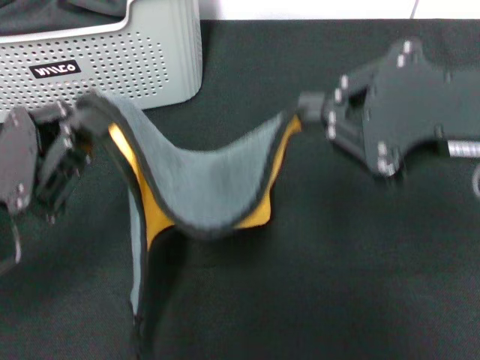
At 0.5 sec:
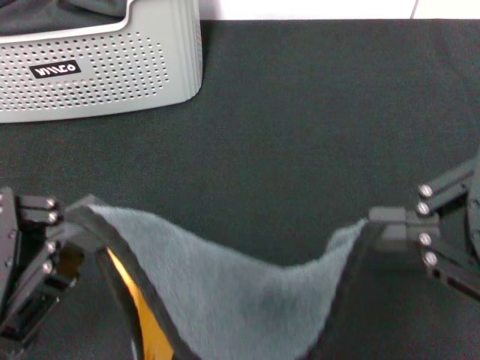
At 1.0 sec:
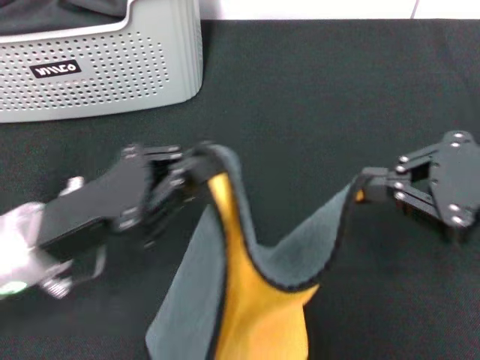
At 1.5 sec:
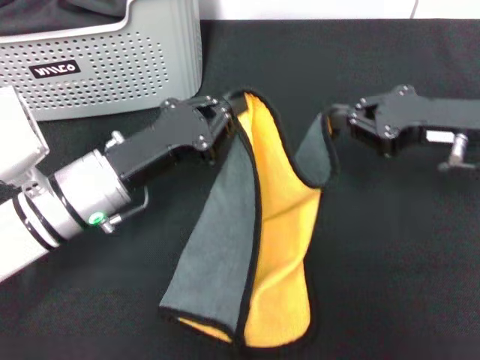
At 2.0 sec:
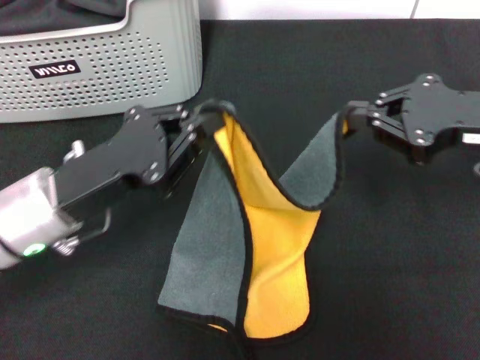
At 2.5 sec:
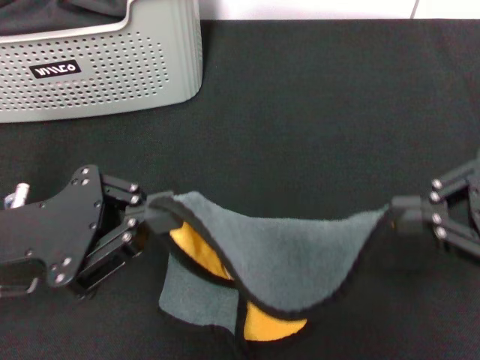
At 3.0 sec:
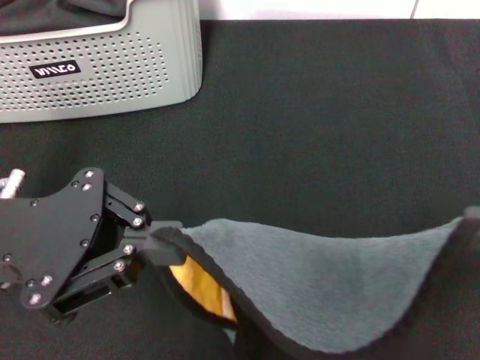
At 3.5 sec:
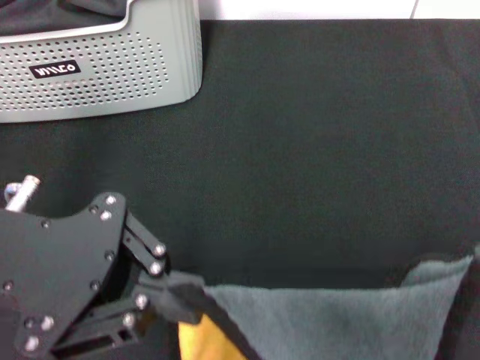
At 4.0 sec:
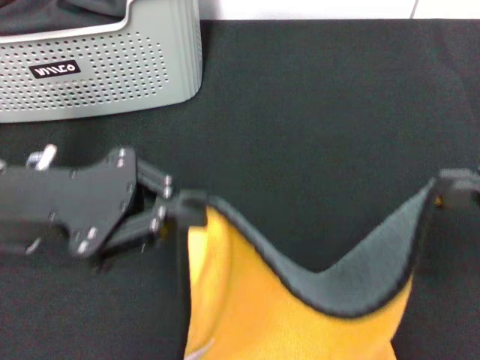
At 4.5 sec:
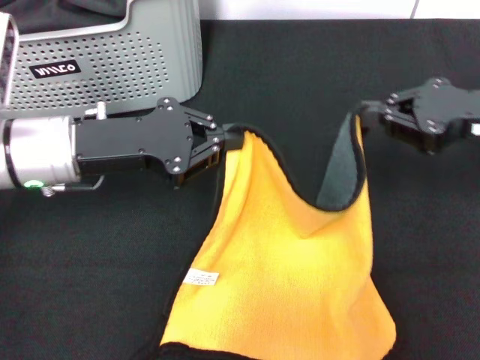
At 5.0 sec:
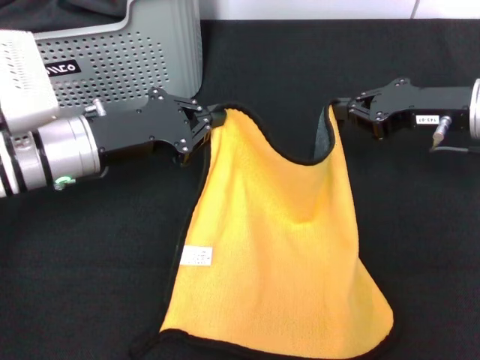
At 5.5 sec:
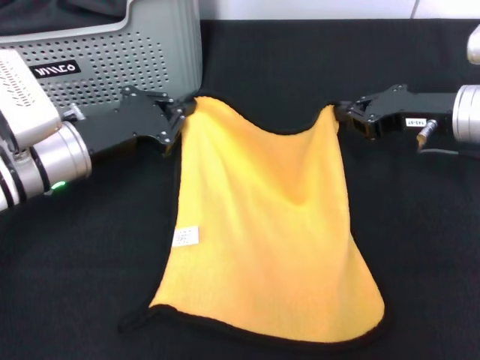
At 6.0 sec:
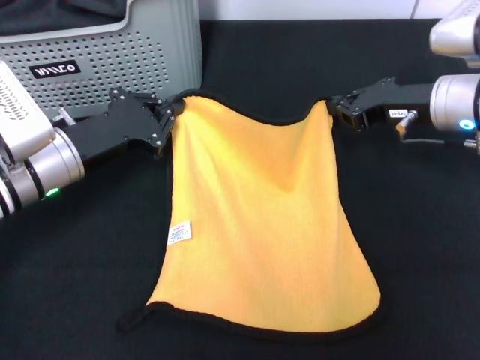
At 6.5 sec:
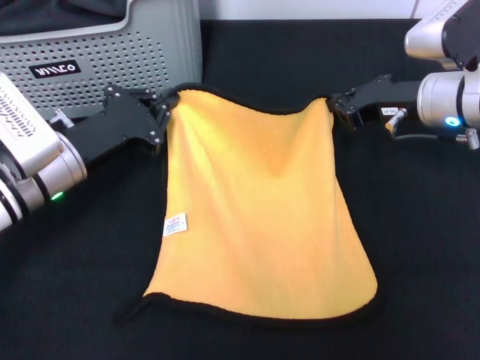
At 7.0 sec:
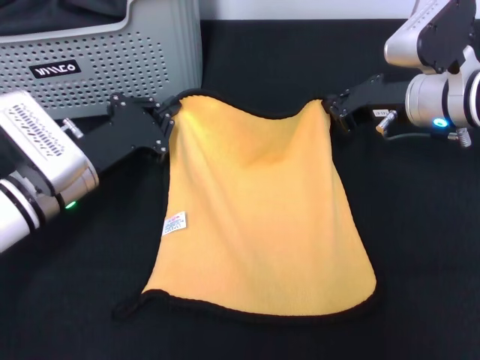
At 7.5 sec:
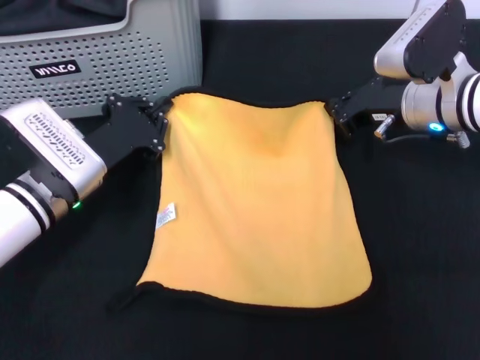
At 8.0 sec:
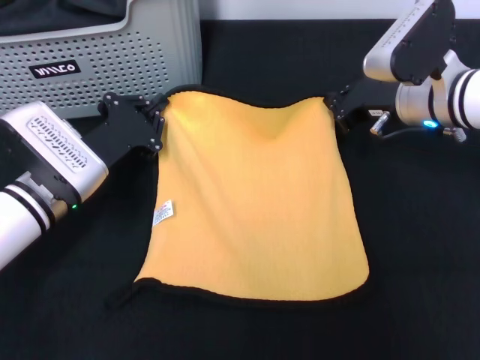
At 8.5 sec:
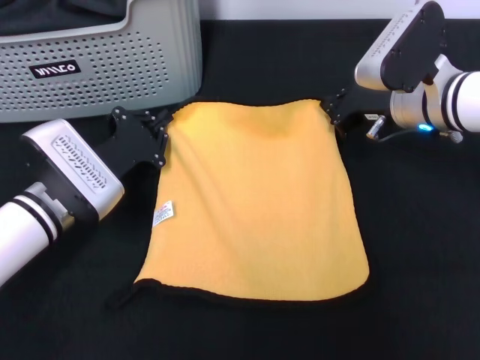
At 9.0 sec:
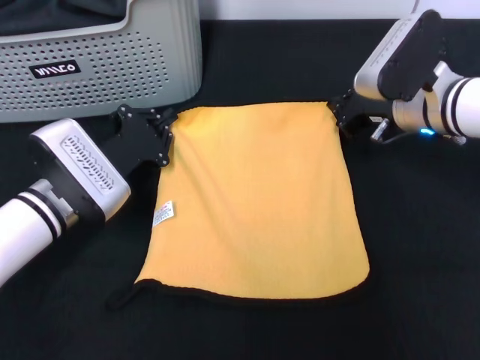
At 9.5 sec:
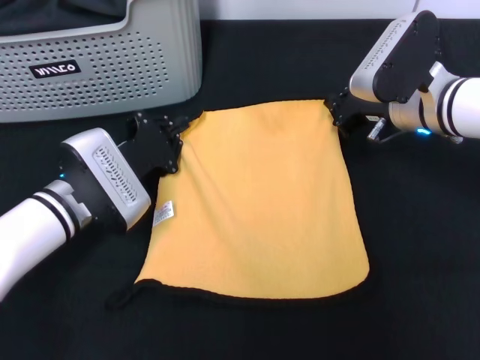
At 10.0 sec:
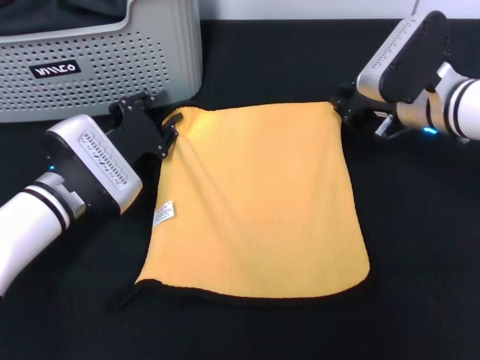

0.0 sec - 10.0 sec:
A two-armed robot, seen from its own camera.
Task of the whole recording: pick up the towel from the storage box and lay it flat on the black tablecloth.
0.0 sec - 2.0 sec: The left gripper is displaced forward by about 5 cm. The right gripper travels downward, forward and to the right by roughly 15 cm.
2.0 sec - 4.0 sec: The left gripper is displaced upward by some 5 cm, while the right gripper moves backward and upward, approximately 10 cm.
4.0 sec - 6.0 sec: The left gripper shifts roughly 10 cm downward and forward; the right gripper moves forward, downward and to the left, some 25 cm.
8.0 sec - 10.0 sec: The grippers move only a little.

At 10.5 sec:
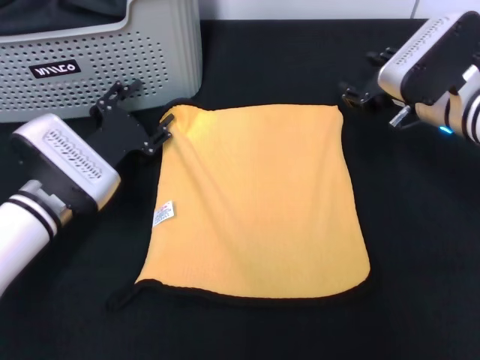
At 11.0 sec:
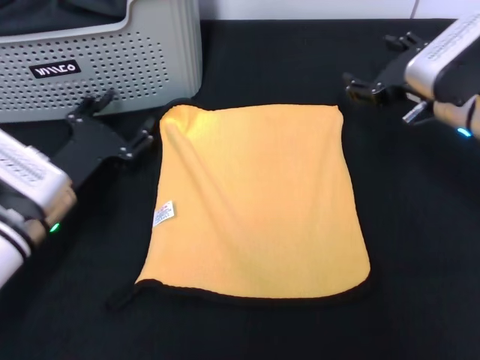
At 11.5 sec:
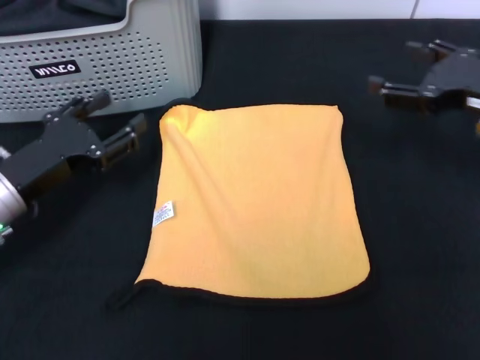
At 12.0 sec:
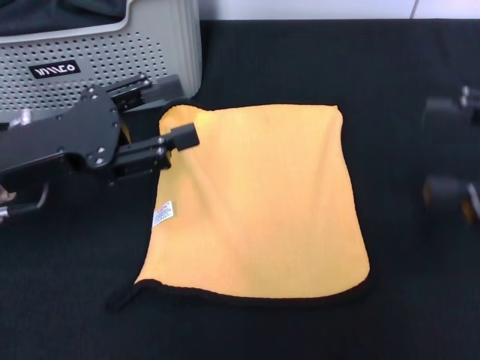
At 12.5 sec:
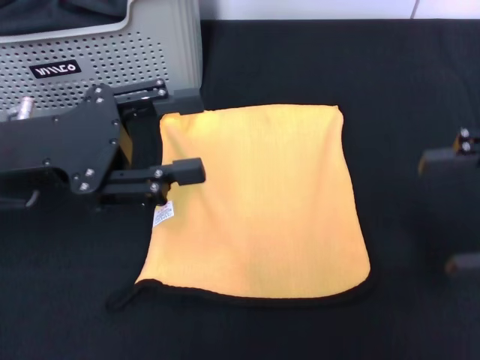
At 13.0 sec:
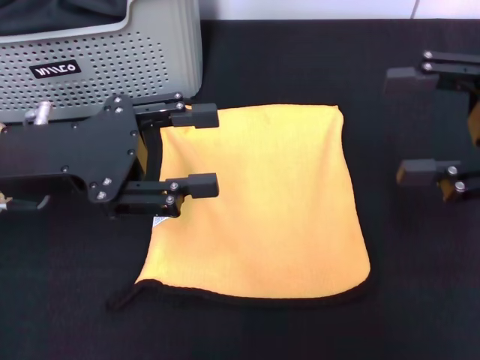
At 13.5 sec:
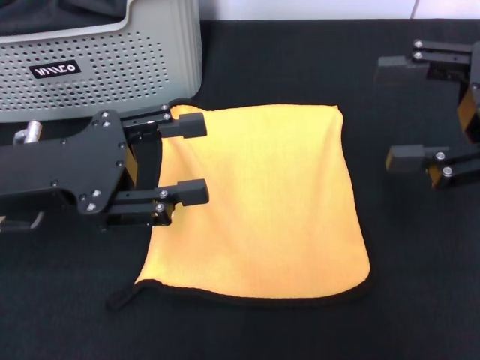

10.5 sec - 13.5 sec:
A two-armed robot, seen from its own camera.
Task of the whole recording: pick up the towel from the storage box and lay it flat on the black tablecloth.
10.5 sec - 12.0 sec: The right gripper moves backward, to the right and upward, about 20 cm, and opens its fingers. Meanwhile the left gripper goes about 10 cm upward.
12.0 sec - 13.5 sec: The right gripper shifts by roughly 5 cm.
